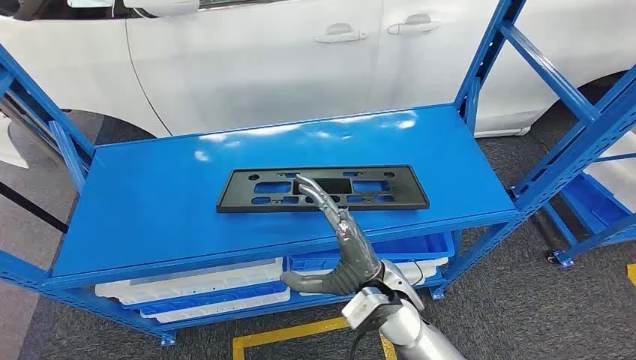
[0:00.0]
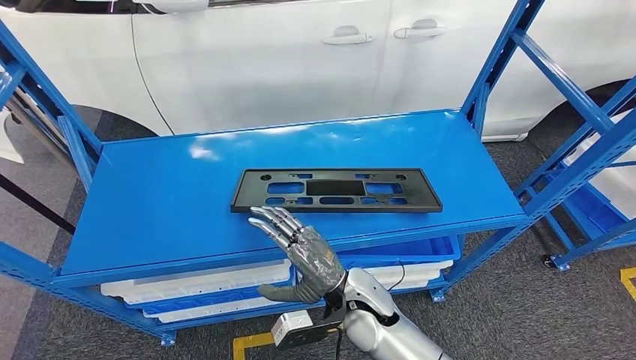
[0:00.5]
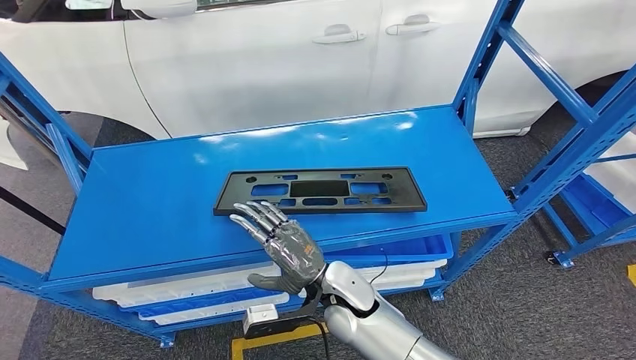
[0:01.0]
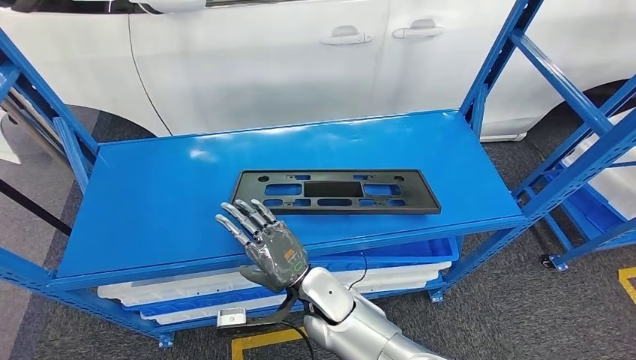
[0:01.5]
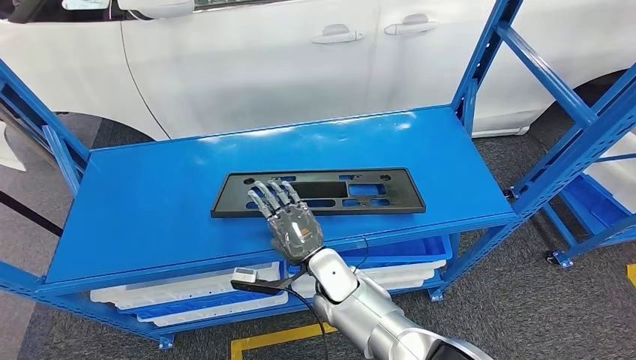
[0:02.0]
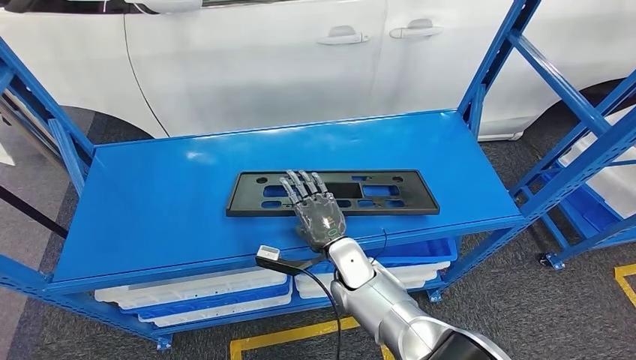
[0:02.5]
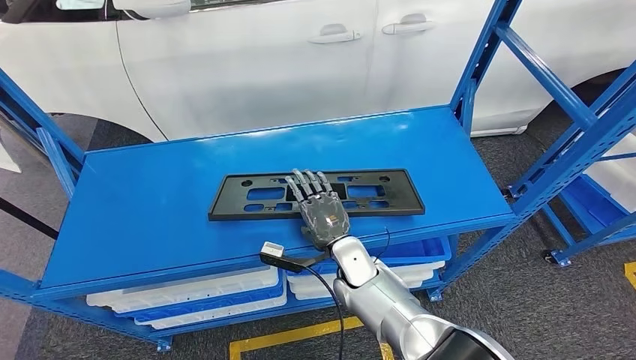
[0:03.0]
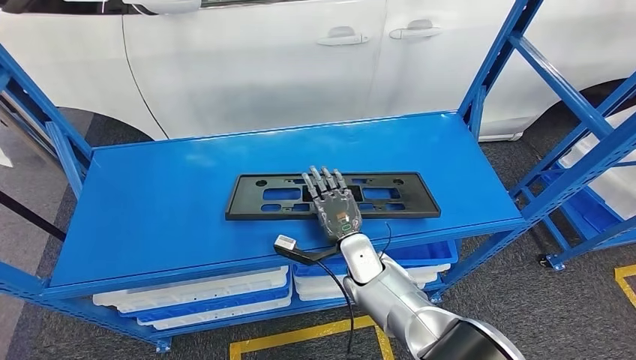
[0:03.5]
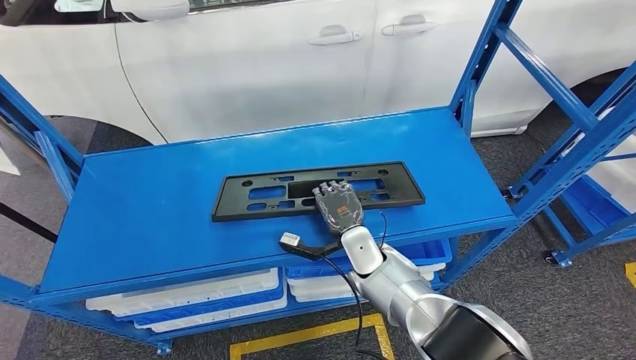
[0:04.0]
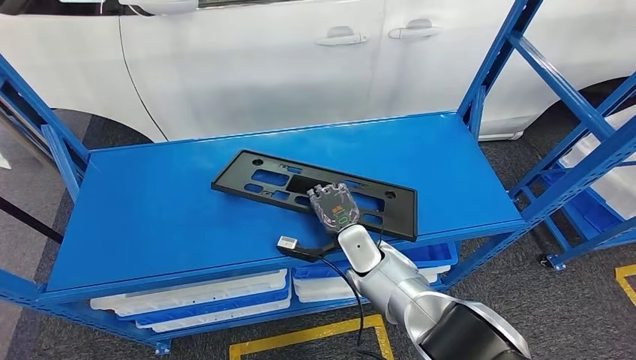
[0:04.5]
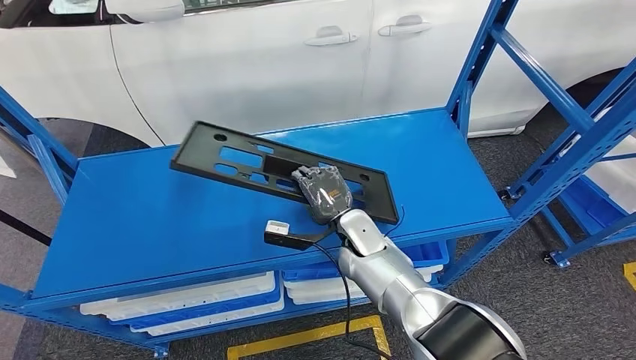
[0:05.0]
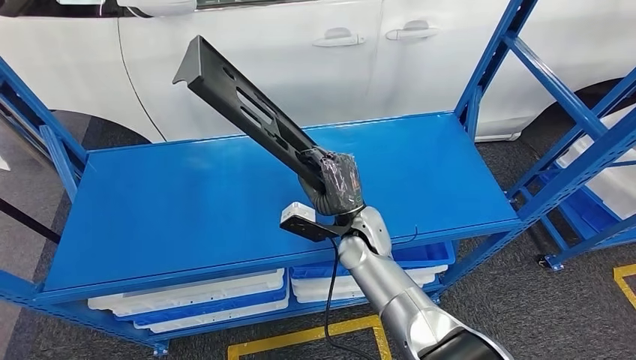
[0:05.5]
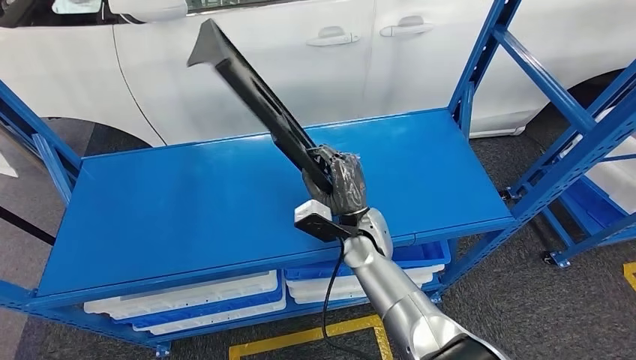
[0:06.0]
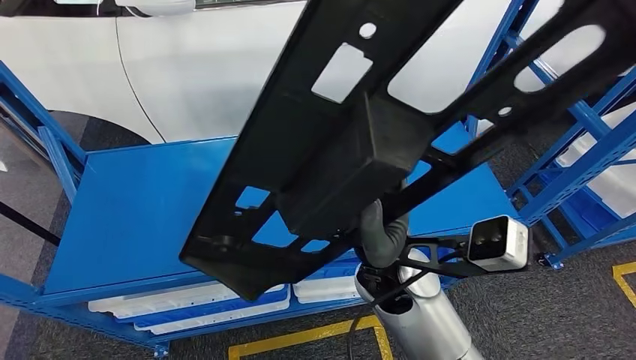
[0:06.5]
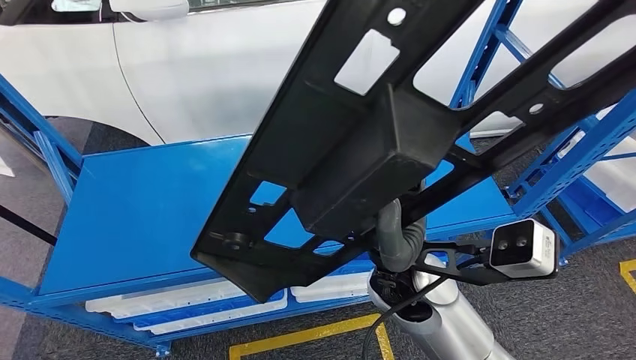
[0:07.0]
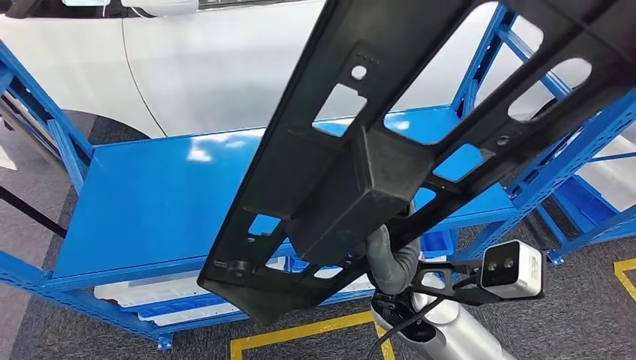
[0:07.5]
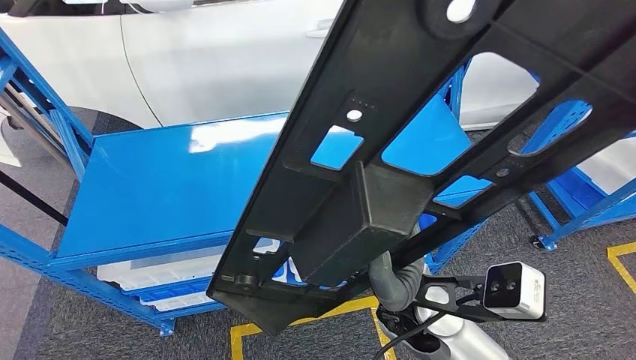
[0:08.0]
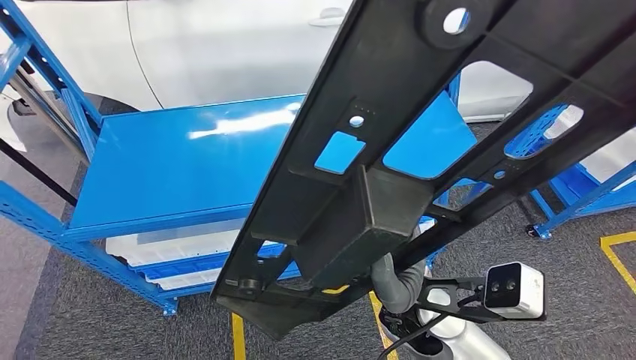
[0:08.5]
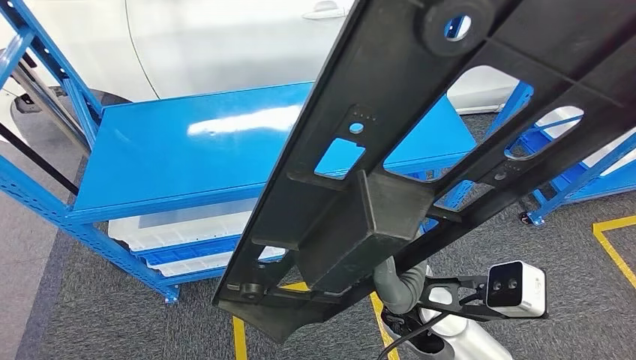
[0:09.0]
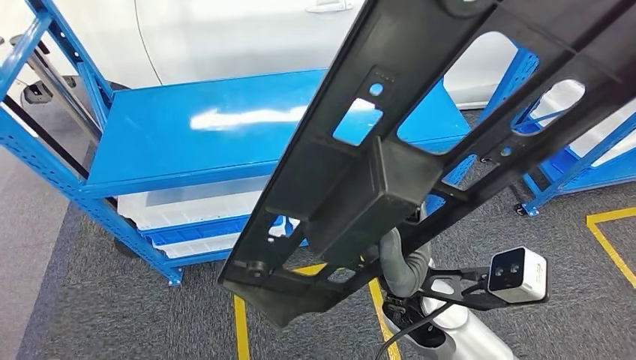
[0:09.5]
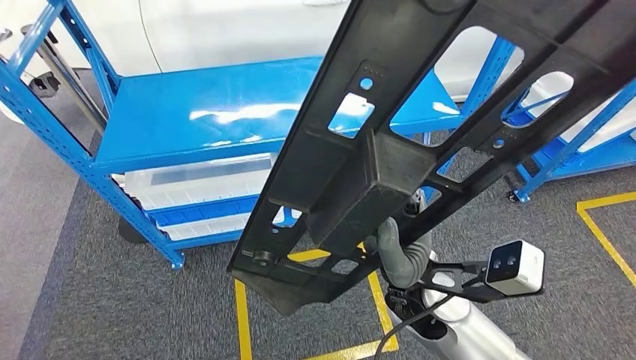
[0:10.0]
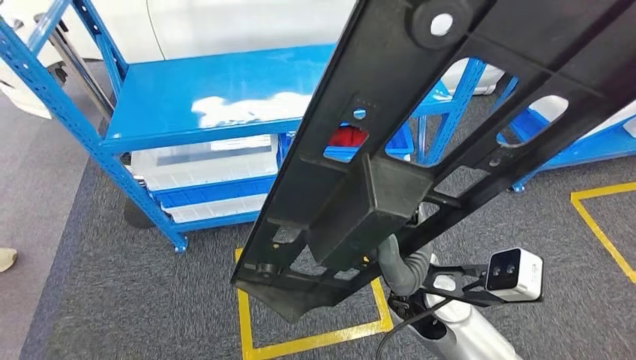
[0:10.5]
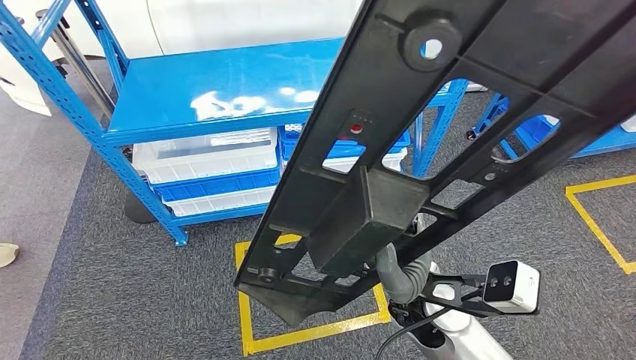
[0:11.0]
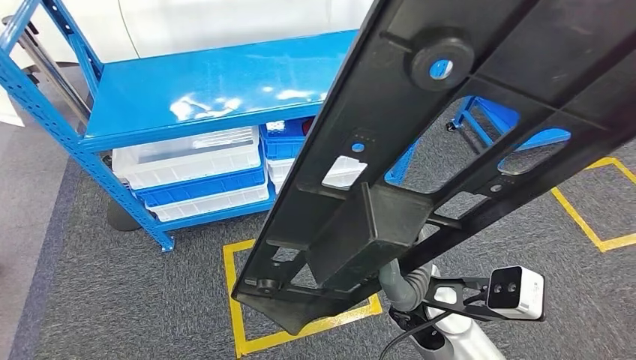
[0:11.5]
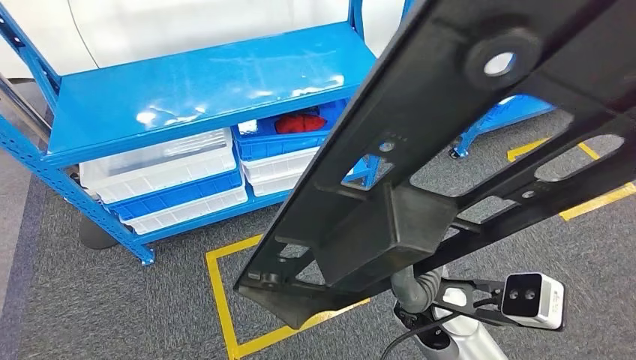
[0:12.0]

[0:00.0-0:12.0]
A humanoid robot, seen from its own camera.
Step, 0:00.0 to 0:07.0: Pick up the large material from the shelf.
0:04.0 to 0:06.0: The right hand shifts some 5 cm upward.

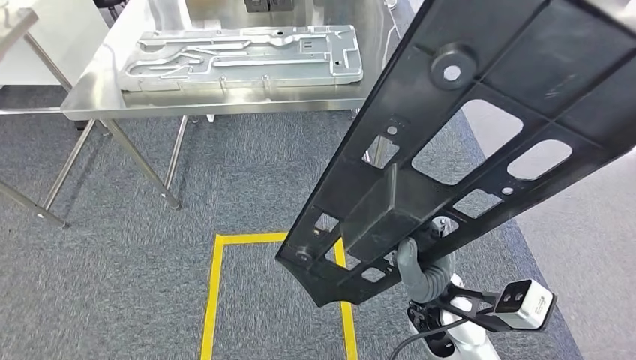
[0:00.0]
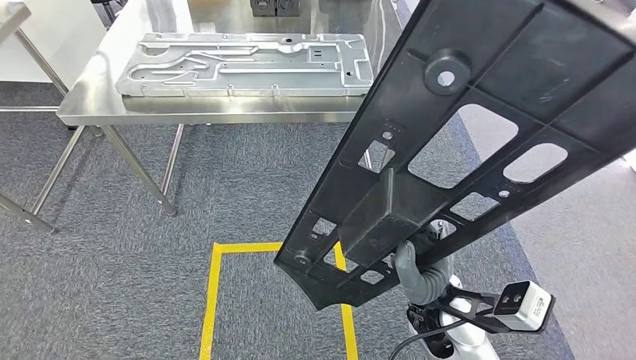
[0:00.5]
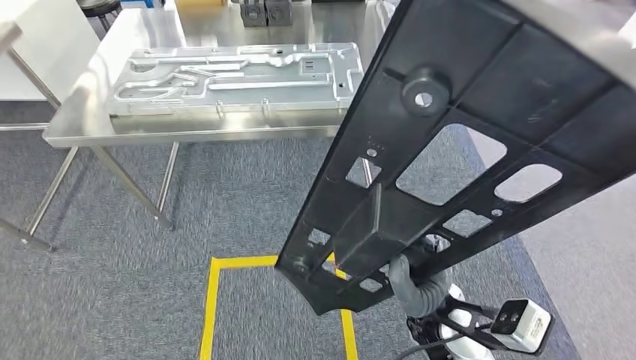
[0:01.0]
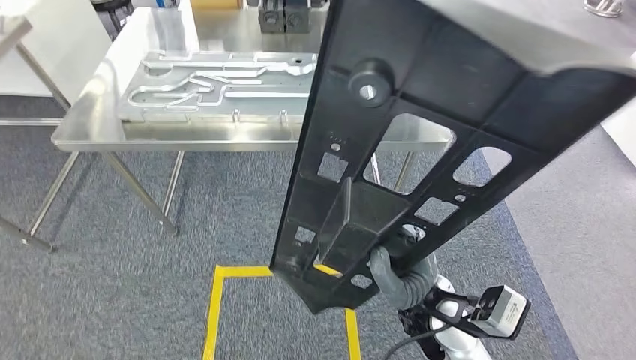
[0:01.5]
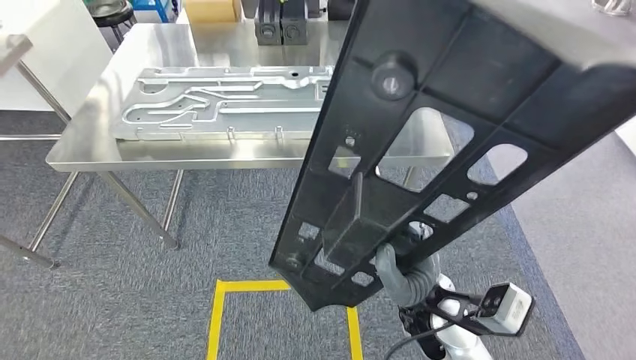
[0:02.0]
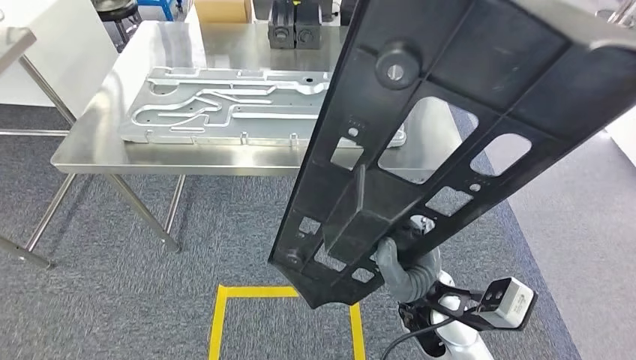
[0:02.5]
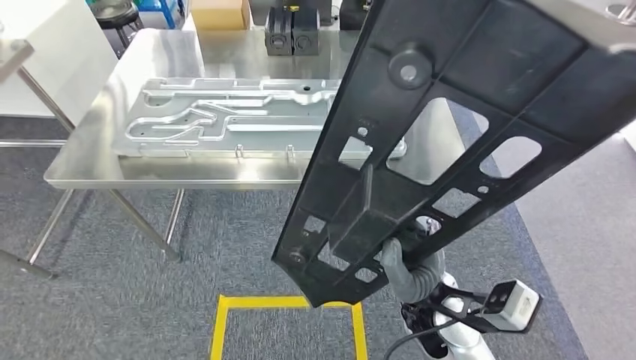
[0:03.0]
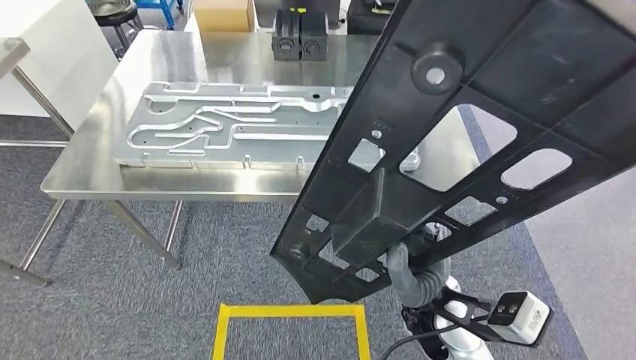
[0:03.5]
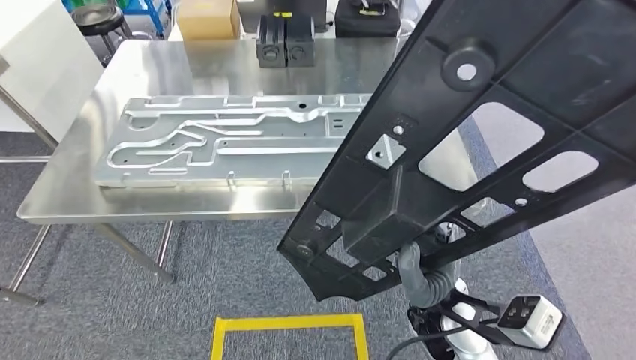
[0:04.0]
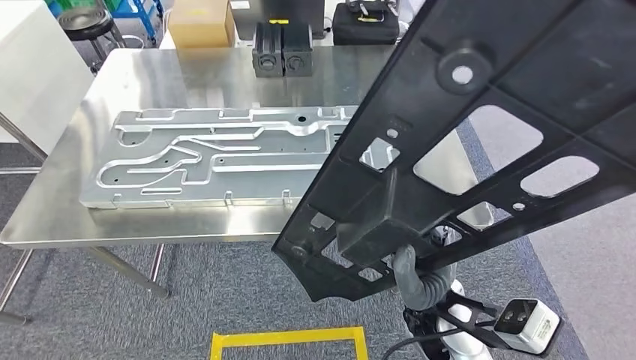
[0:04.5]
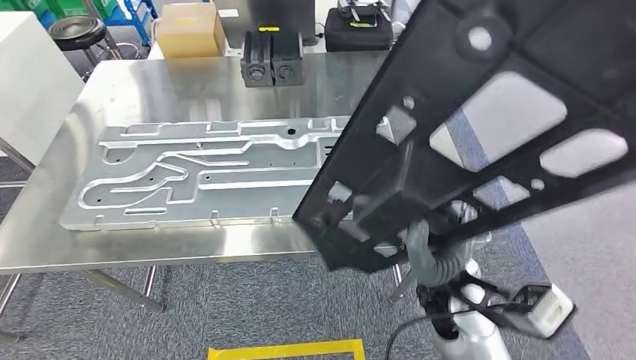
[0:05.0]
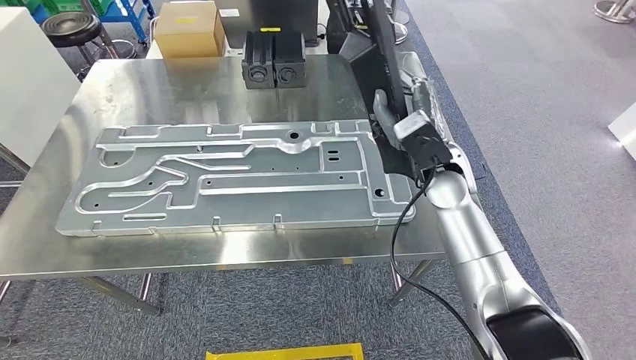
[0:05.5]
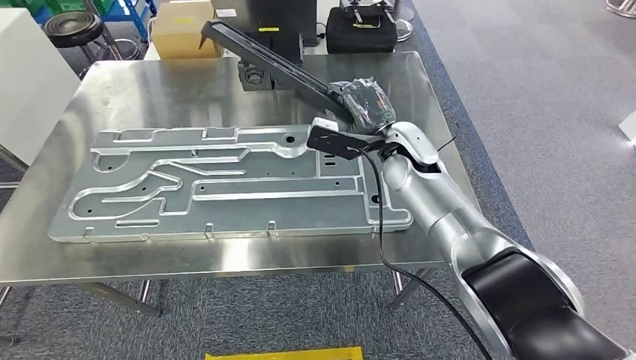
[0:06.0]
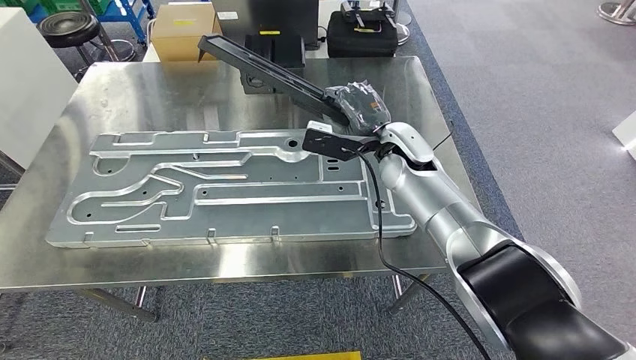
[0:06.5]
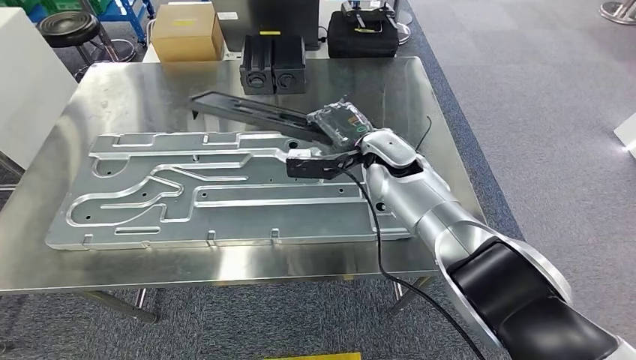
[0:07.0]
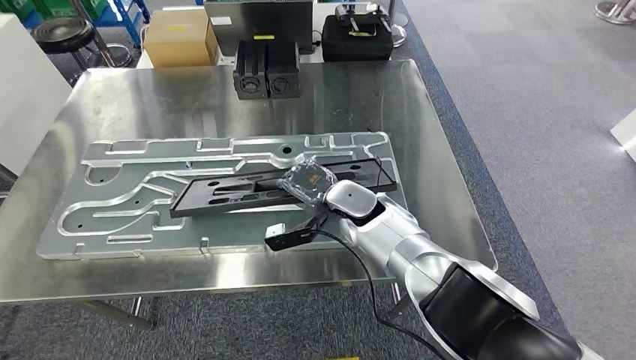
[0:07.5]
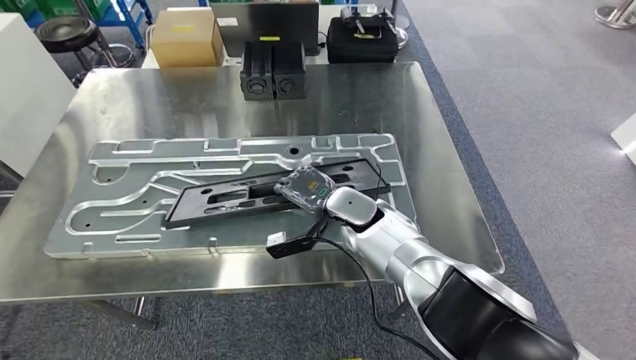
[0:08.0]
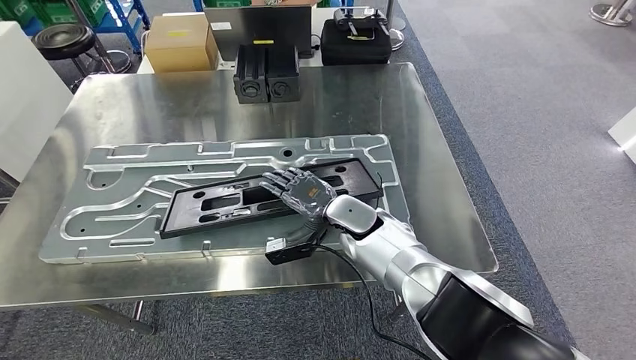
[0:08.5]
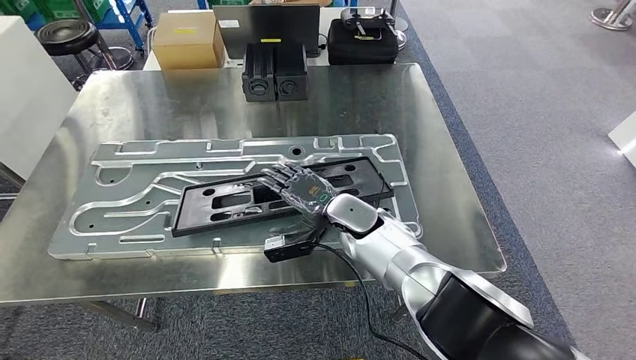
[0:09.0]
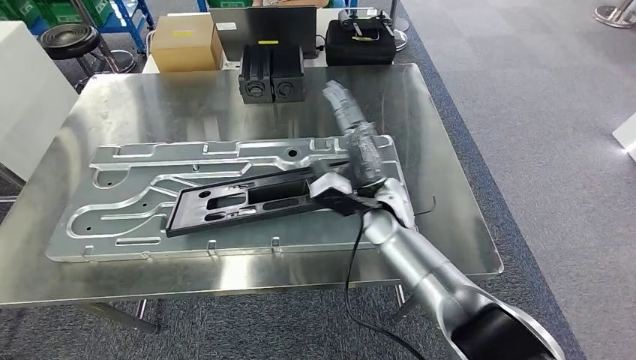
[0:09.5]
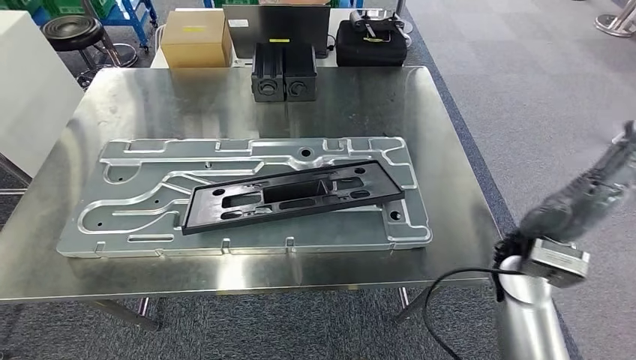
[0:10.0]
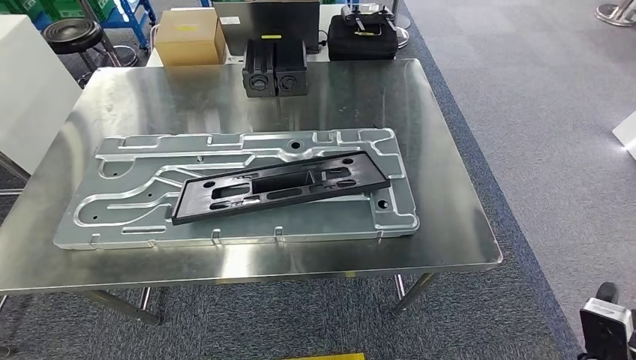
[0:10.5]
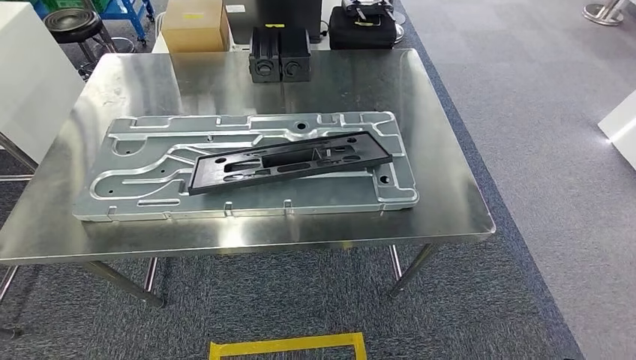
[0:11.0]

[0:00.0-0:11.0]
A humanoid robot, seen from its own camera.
Step, 0:00.0 to 0:06.5: Move the large material to the workbench.
Step, 0:07.0 to 0:09.5: Insert the large material into the corresponding slot on the workbench.
